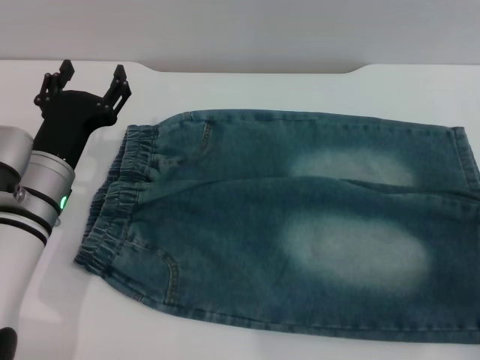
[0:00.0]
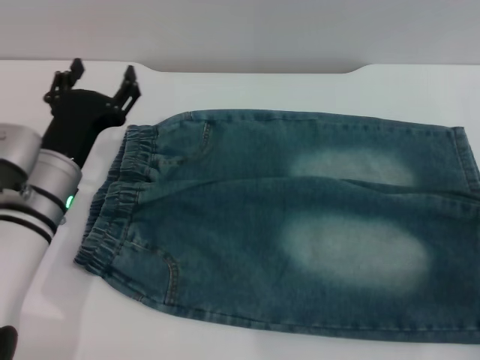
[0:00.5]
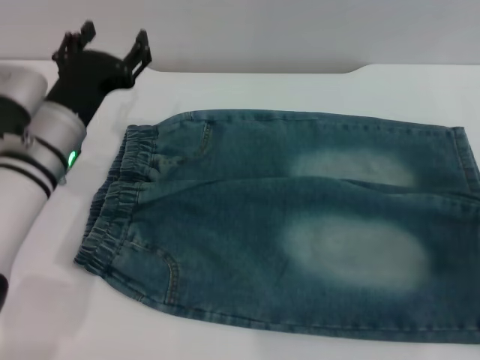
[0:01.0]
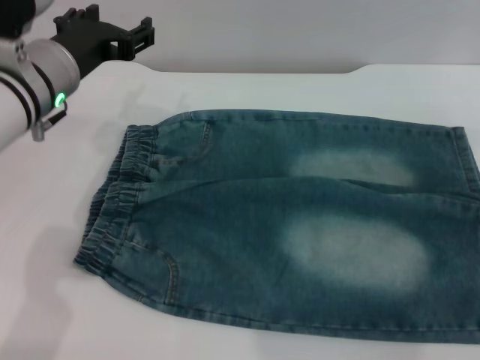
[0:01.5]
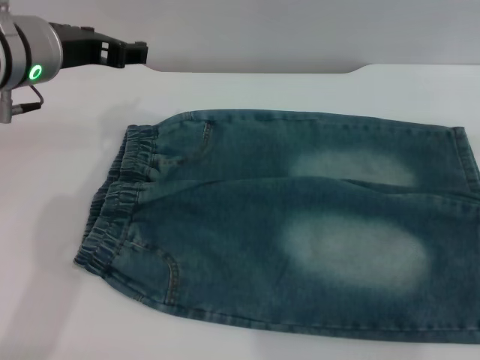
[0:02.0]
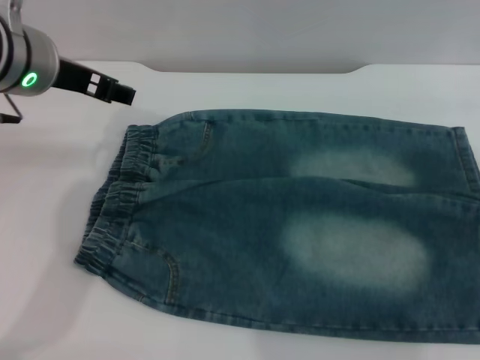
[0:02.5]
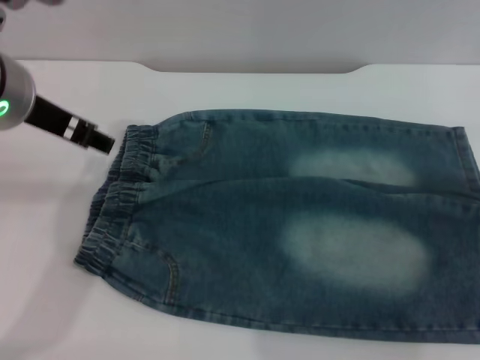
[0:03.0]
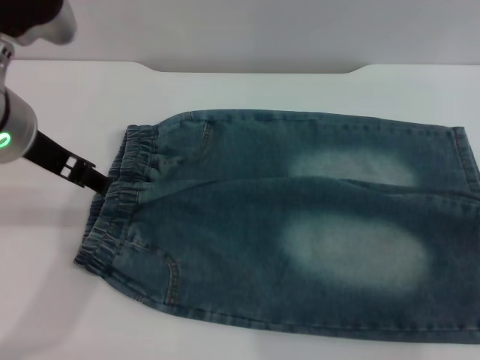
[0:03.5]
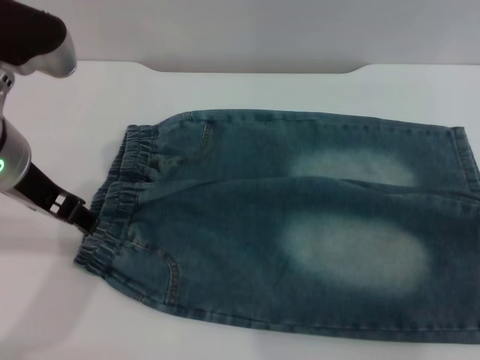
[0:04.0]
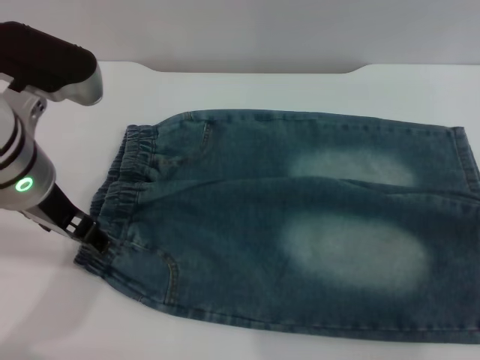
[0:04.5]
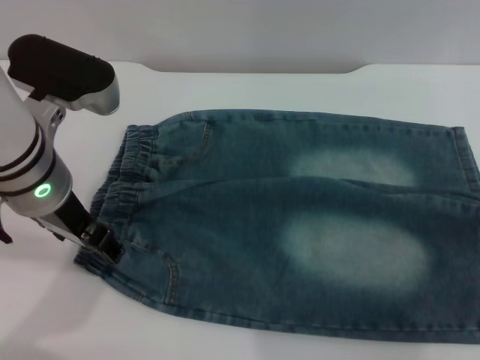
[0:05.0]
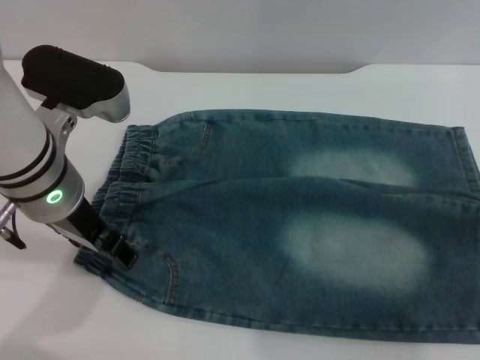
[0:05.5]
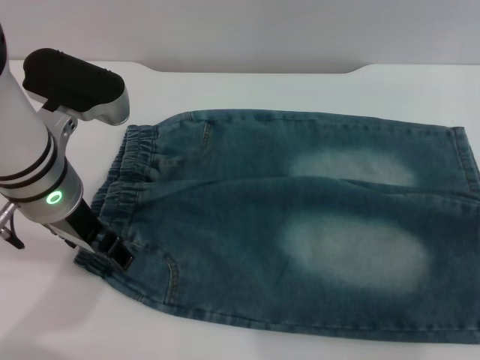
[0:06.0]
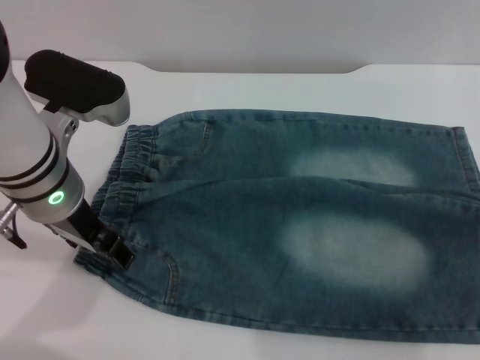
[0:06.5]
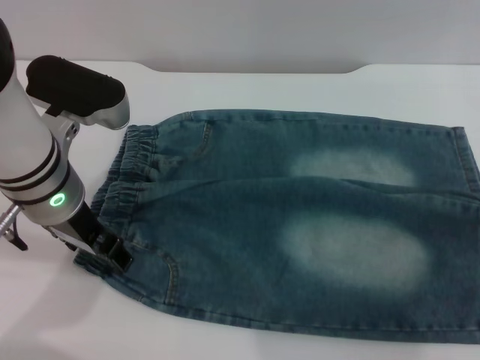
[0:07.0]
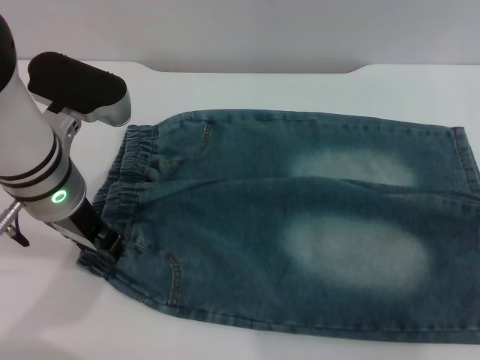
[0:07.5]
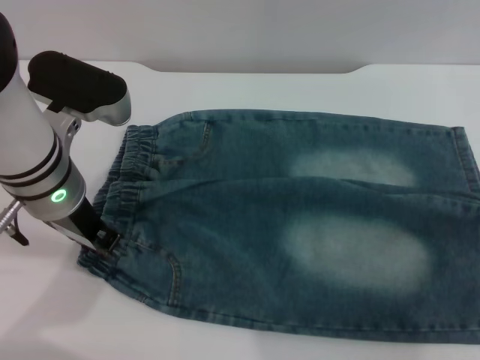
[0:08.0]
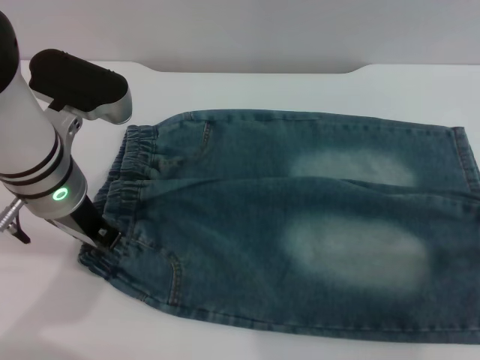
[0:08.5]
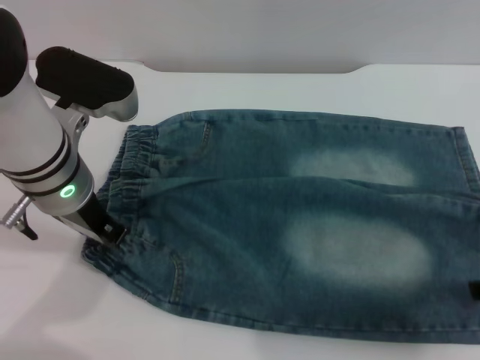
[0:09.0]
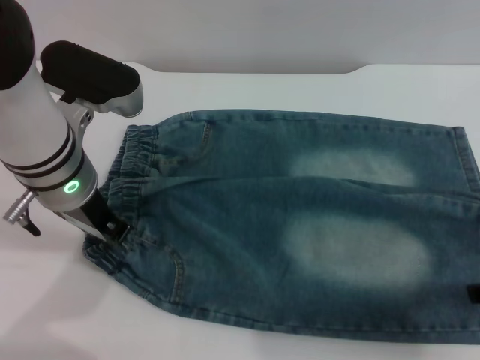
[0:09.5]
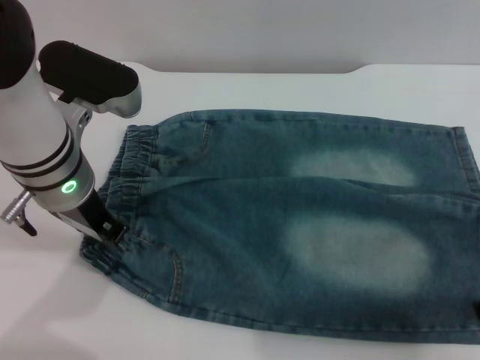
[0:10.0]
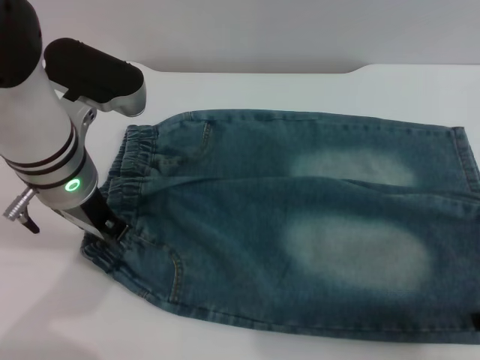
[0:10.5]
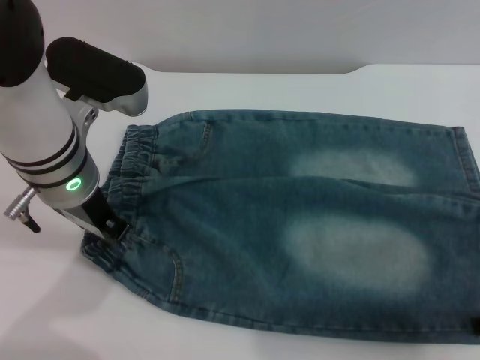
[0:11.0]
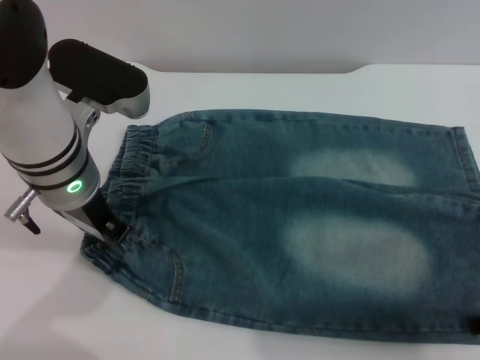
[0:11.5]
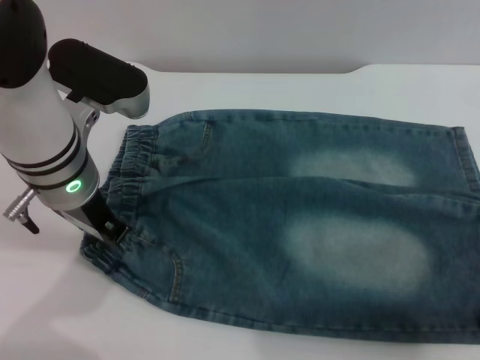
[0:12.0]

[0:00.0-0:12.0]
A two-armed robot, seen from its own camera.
0:00.0 to 0:02.0: The left gripper heads upward, covering roughly 15 cm.
0:02.0 to 0:04.0: The left gripper goes roughly 5 cm backward.
0:04.0 to 0:06.0: The left gripper is displaced downward by approximately 5 cm.
0:06.0 to 0:08.0: The left gripper closes its fingers.

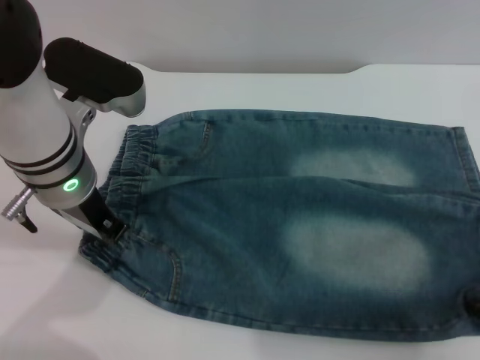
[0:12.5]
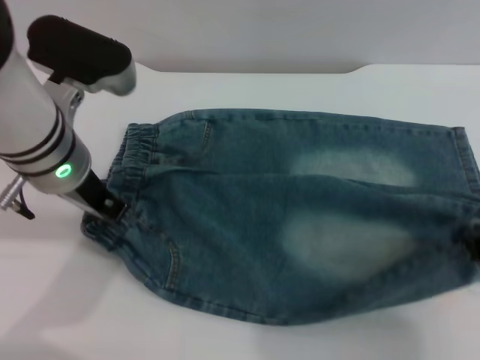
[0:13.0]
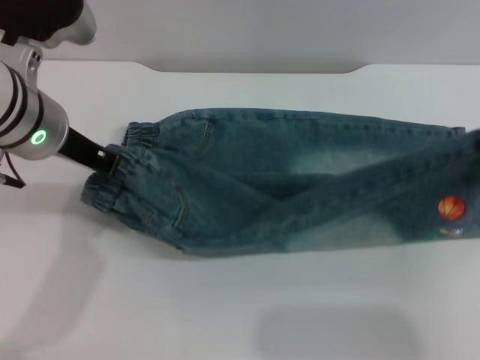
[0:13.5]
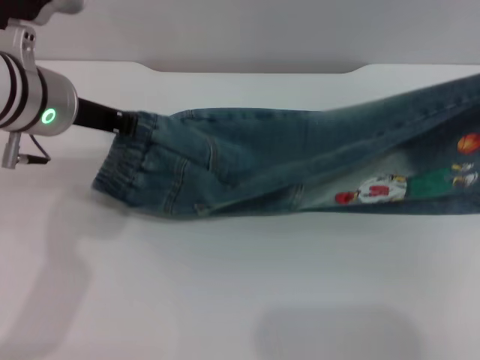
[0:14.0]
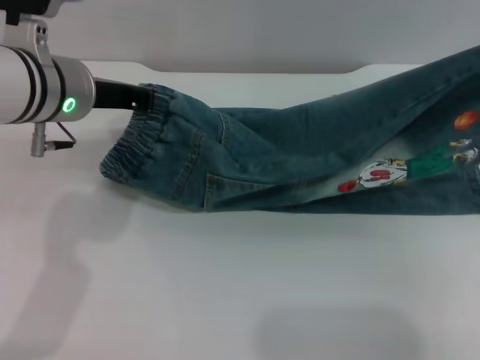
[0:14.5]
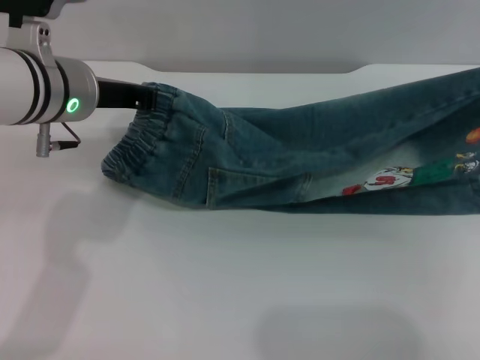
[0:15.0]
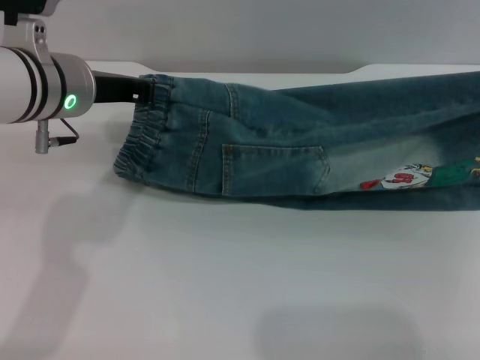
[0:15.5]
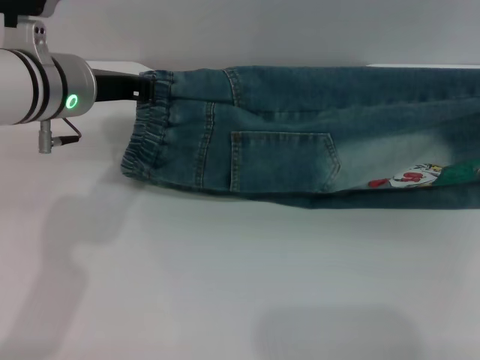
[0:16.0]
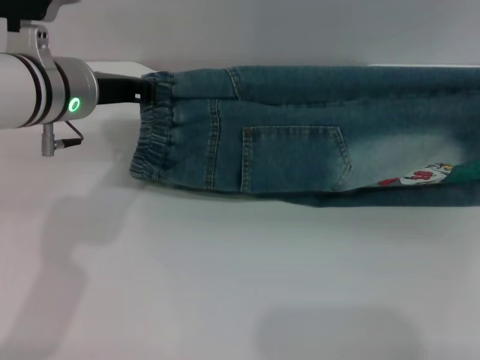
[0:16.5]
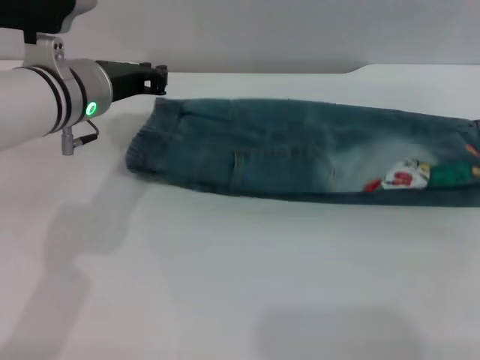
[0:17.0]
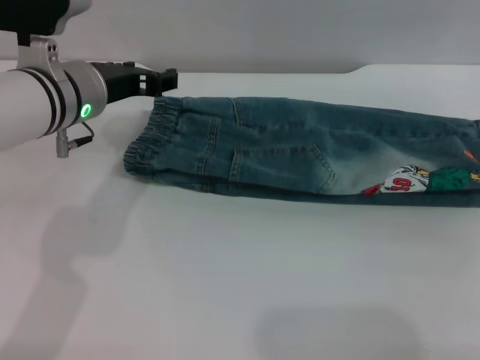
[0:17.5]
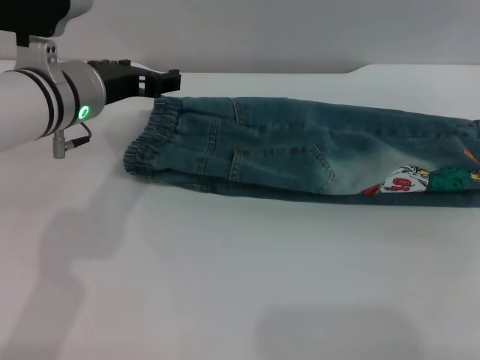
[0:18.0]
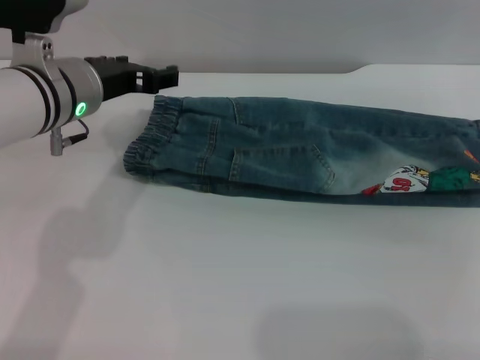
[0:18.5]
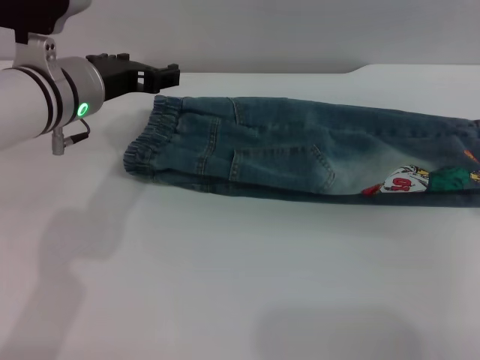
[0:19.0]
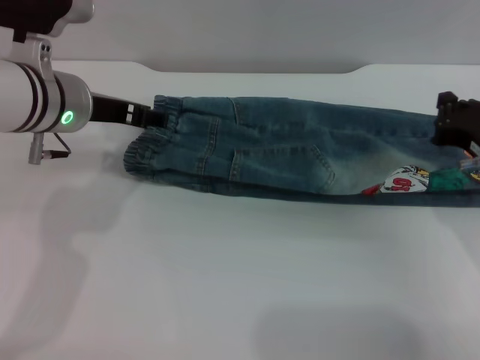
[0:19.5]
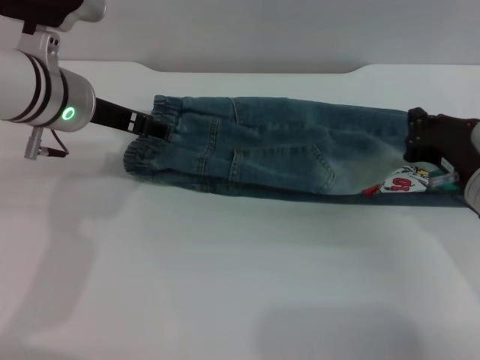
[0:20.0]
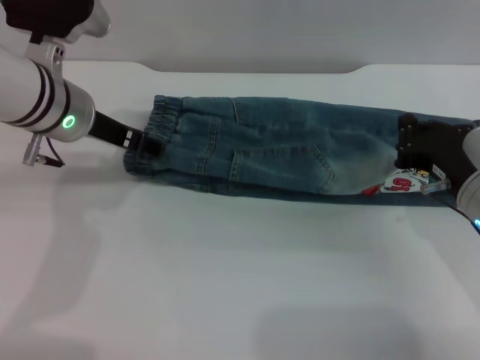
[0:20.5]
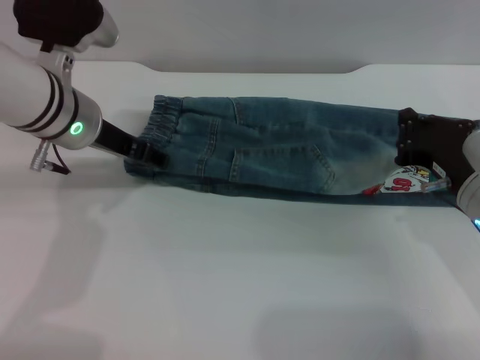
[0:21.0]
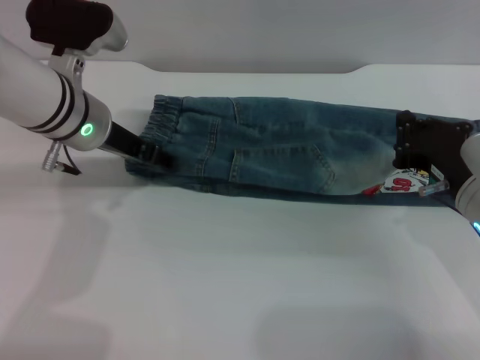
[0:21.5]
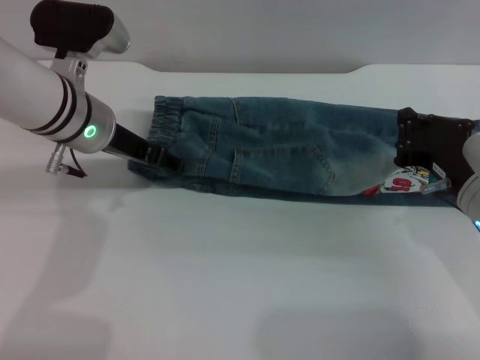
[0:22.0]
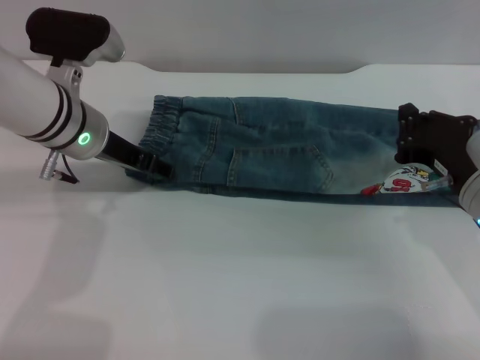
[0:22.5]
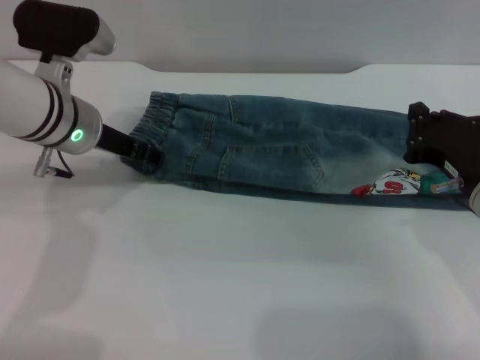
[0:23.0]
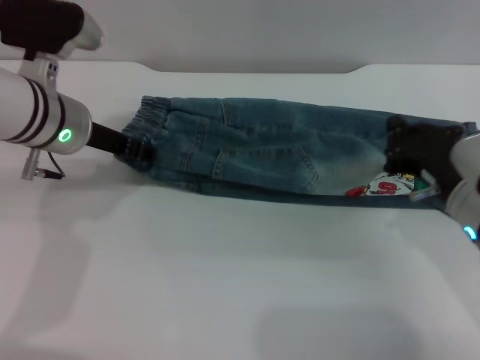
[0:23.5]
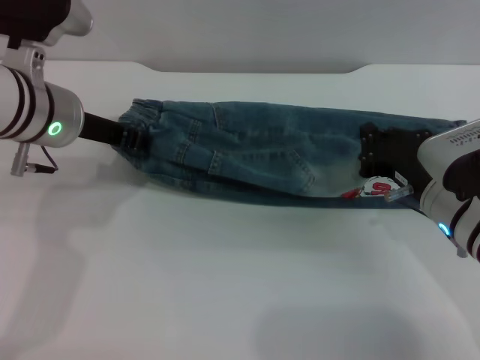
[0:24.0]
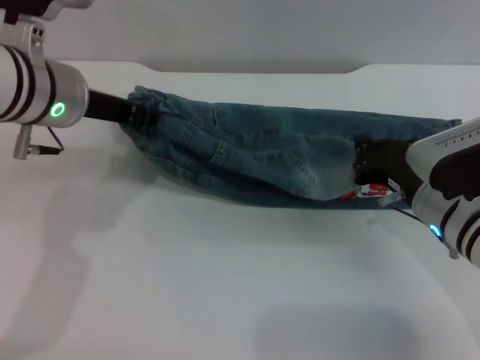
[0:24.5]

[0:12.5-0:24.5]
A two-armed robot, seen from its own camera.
Step, 0:12.5 to 0:17.0: Fold the bottom of the pants upward with both grippers.
0:12.5 to 0:14.5: The right gripper moves upward, approximately 5 cm.
0:14.5 to 0:16.5: The right gripper travels to the right by some 5 cm.
0:16.5 to 0:18.5: The left gripper opens its fingers. Meanwhile the right gripper opens up.
0:18.5 to 0:20.5: The right gripper shifts approximately 10 cm to the left and downward, and closes up.
0:20.5 to 0:22.5: The grippers move only a little.
0:22.5 to 0:24.5: The right gripper shifts by roughly 5 cm, while the left gripper is displaced upward by about 5 cm, and closes up.

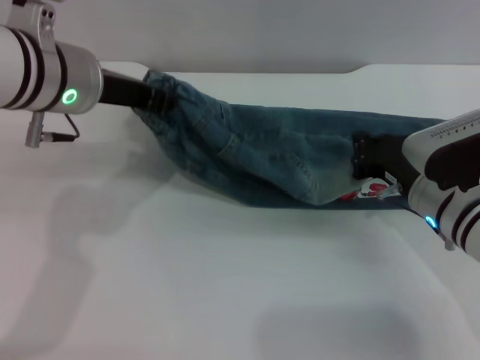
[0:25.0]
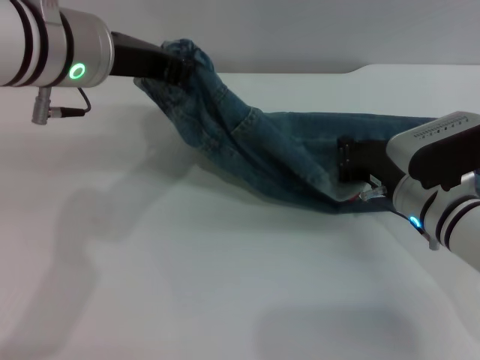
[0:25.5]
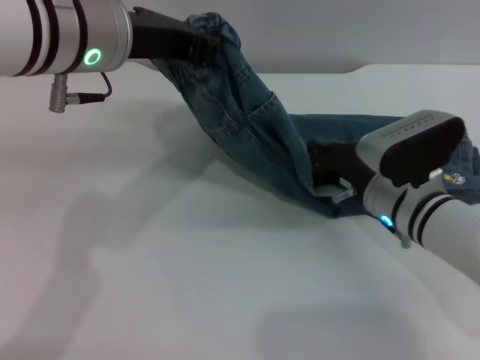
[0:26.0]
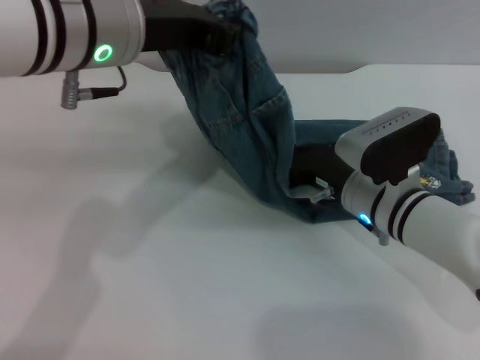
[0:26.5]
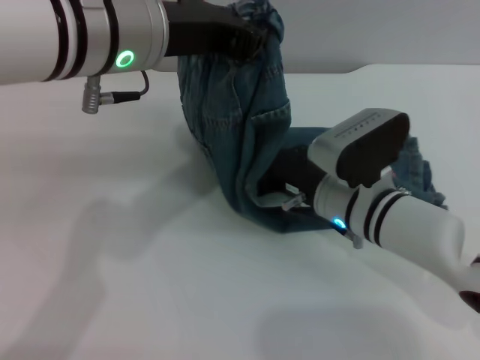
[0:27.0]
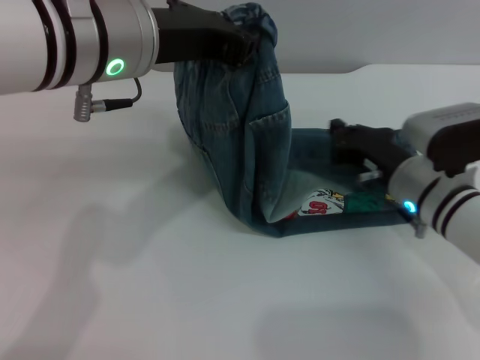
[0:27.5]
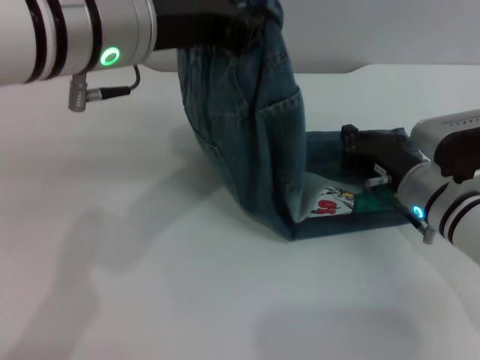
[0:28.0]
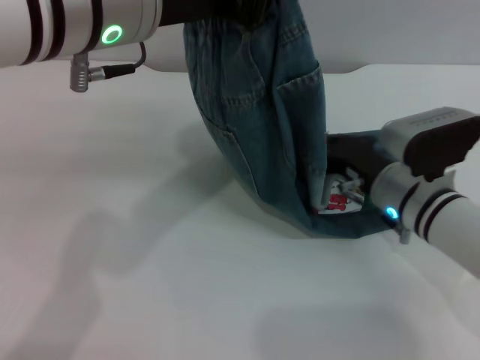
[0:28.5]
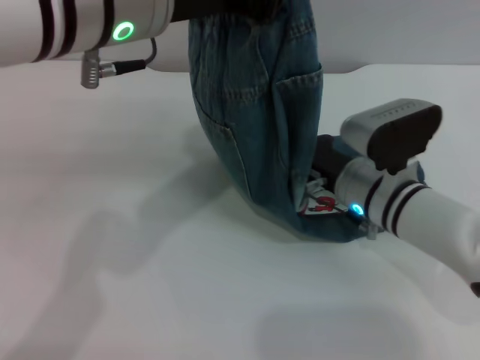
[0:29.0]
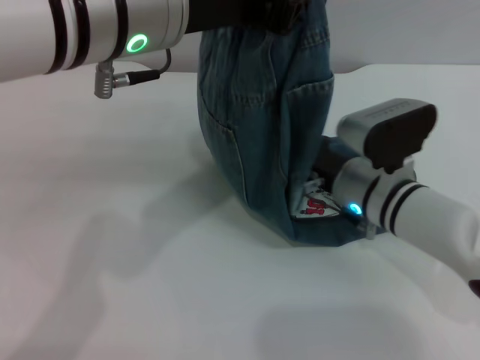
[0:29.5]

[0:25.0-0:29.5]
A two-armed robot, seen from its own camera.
0:25.0 to 0:27.0: The right gripper goes approximately 10 cm to the left; the left gripper travels to the right and upward by roughly 5 cm.
0:27.0 to 0:29.5: The right gripper moves some 10 cm to the right and comes back.
